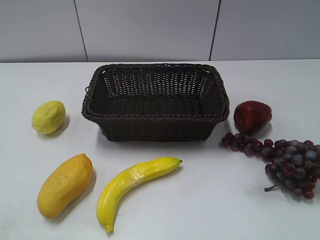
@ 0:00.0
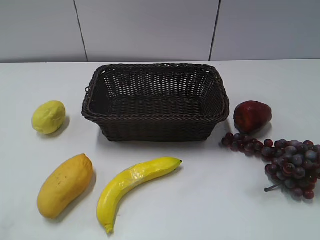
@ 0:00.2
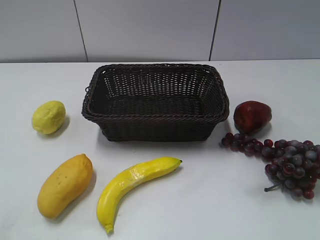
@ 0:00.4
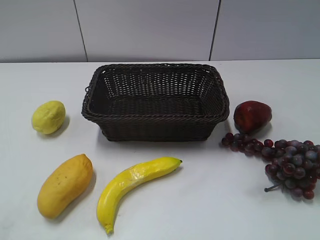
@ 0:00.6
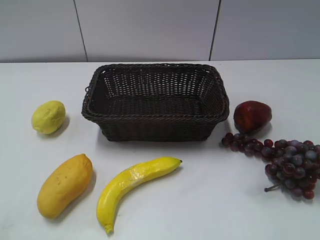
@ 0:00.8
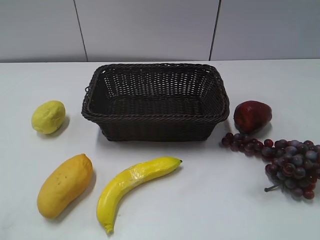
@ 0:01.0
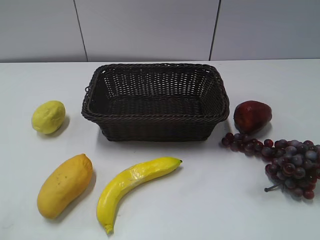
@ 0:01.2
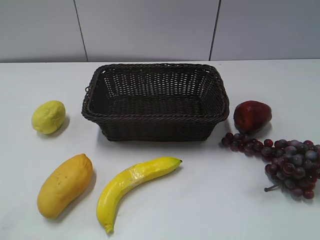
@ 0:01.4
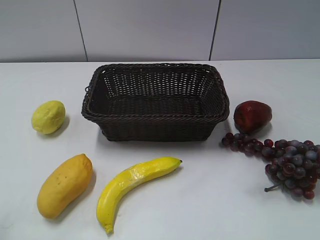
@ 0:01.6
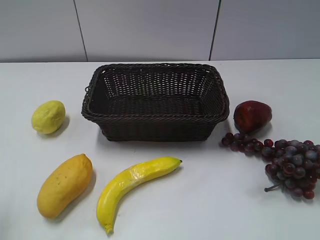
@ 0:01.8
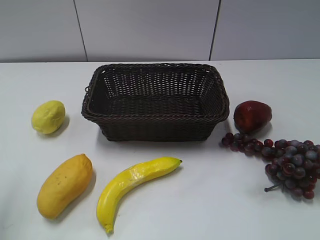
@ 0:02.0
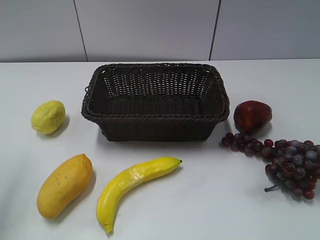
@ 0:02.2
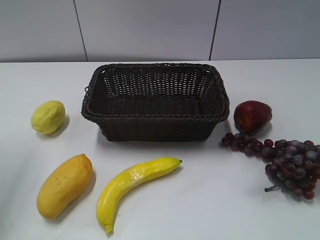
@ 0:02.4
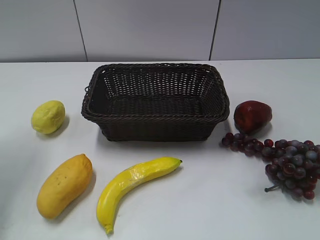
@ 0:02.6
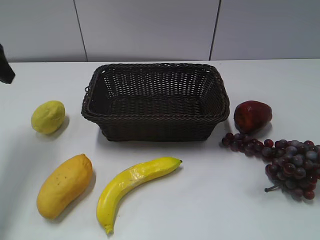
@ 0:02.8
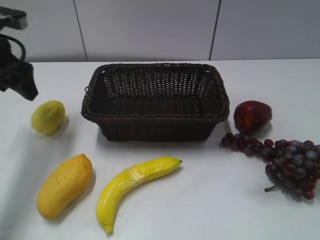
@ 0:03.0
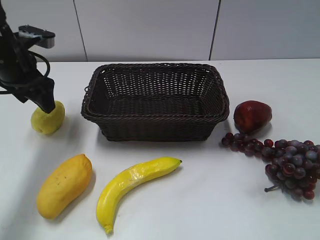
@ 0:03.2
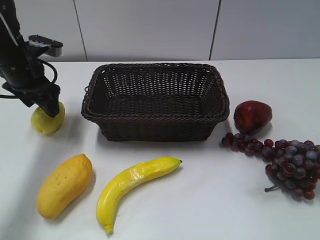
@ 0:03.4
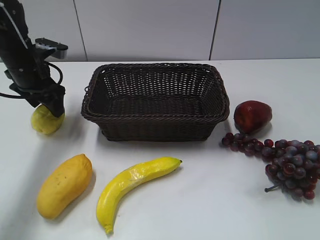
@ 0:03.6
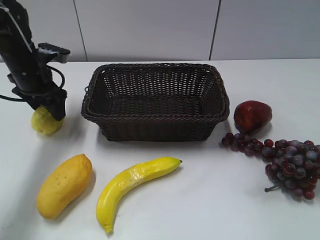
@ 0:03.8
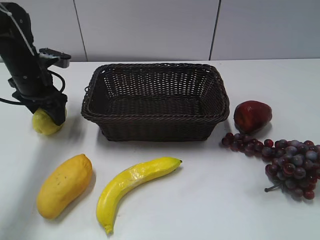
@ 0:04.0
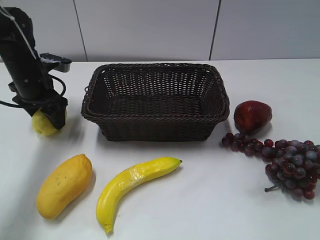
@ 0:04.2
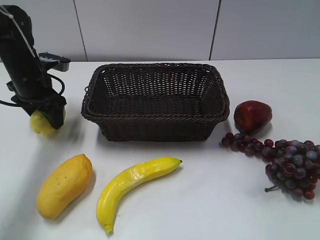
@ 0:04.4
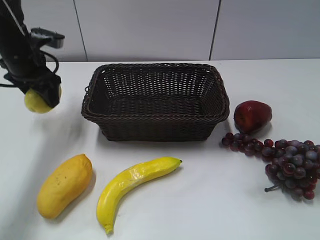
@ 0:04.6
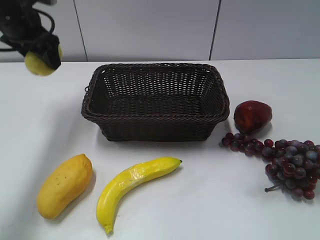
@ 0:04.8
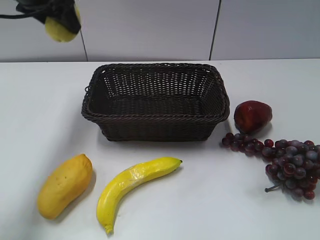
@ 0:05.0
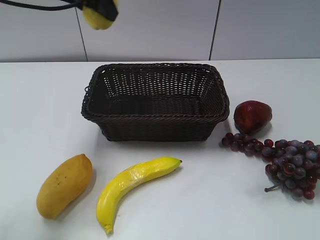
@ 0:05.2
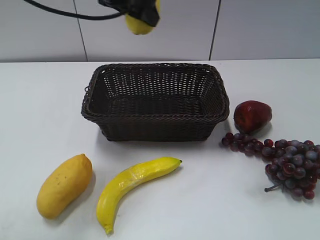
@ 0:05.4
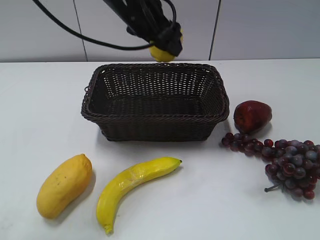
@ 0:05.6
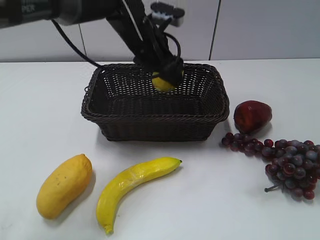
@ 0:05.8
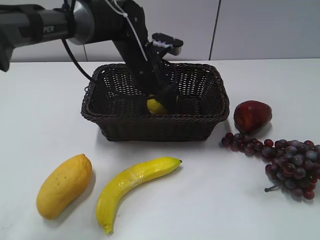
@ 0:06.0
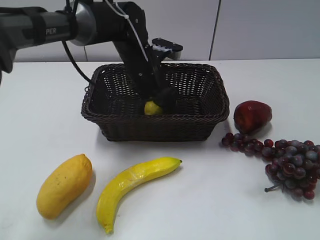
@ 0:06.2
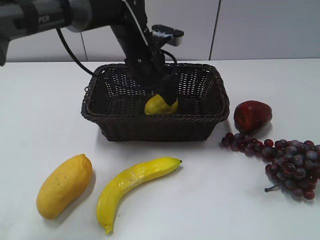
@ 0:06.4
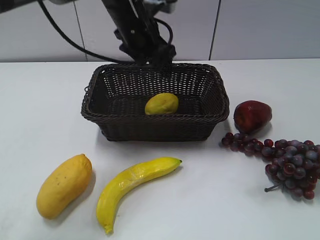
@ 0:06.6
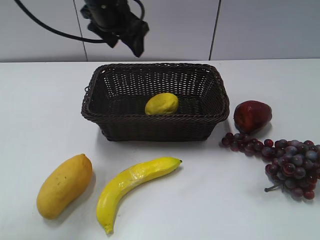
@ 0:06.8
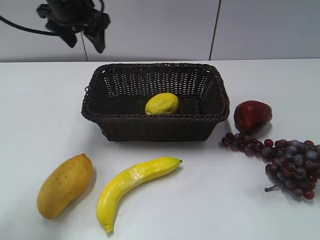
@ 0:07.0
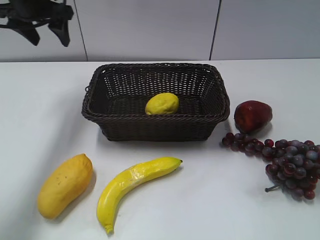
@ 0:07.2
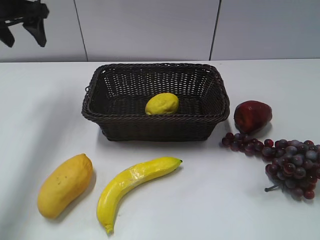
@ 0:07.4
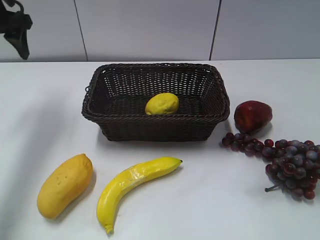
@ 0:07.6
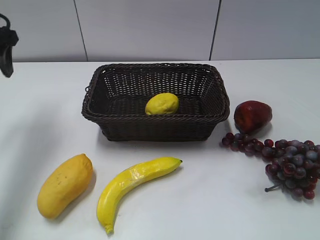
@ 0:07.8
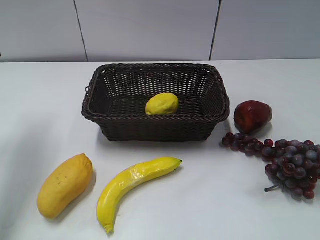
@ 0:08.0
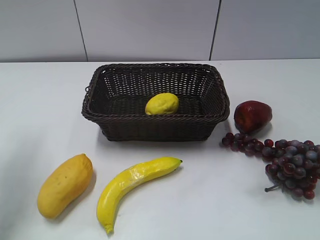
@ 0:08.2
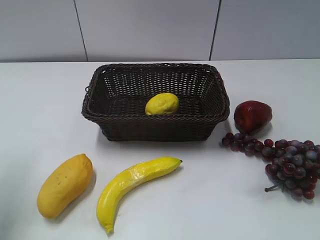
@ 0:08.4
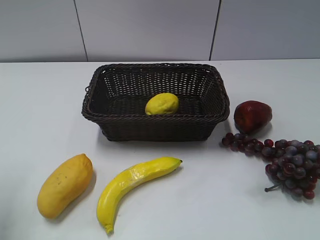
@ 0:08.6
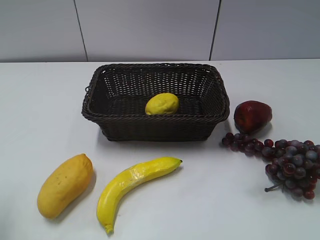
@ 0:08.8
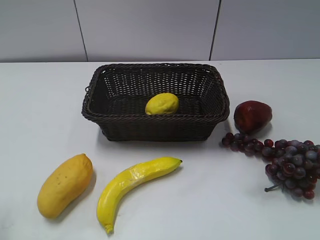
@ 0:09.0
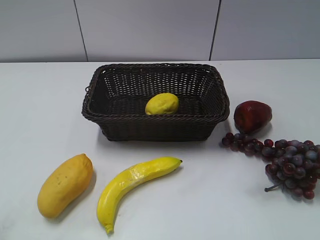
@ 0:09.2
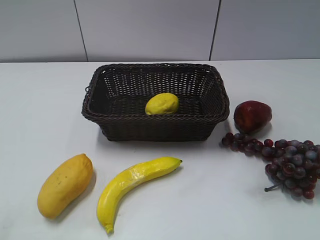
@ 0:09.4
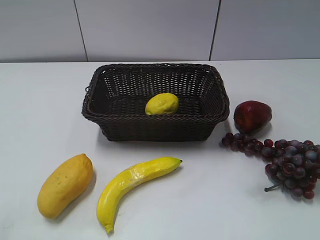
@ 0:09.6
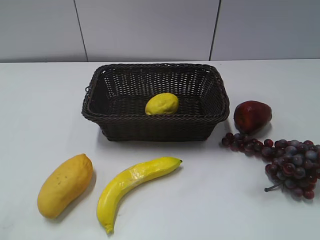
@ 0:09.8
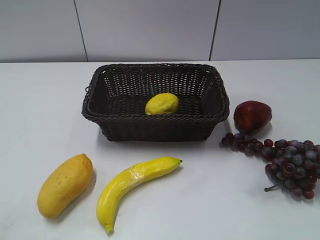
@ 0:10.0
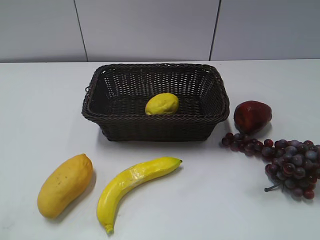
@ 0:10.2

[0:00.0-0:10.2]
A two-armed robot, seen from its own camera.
Step, 0:02.8 to 0:04.4: Grasp the lemon with left gripper.
Step, 0:04.6 to 0:06.2: Place the lemon in the basket with left gripper.
0:01.4 to 0:03.0: The left gripper goes approximately 35 cm forward, and opens.
0:03.0 to 0:04.4: The left gripper heads downward, covering some 10 cm.
0:04.4 to 0:05.8: The left gripper shifts about 20 cm to the right.
0:05.8 to 0:07.2: The left gripper shifts some 20 cm to the left.
0:07.2 to 0:08.8: The left gripper moves backward, roughly 30 cm.
